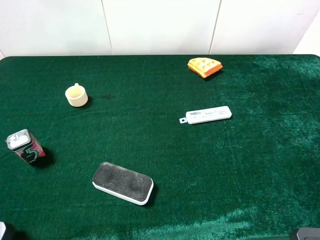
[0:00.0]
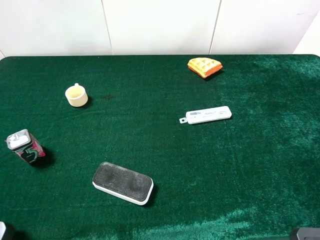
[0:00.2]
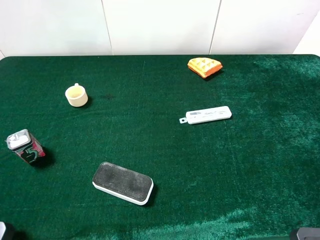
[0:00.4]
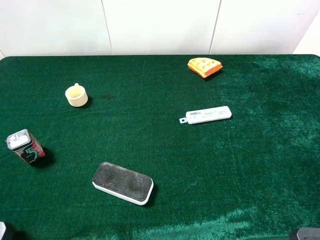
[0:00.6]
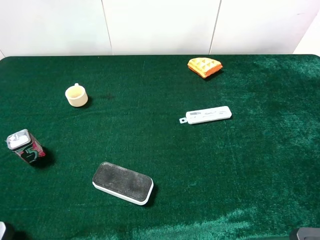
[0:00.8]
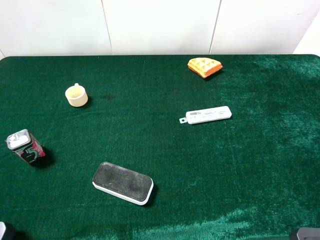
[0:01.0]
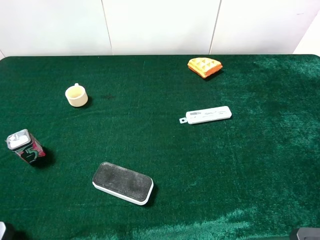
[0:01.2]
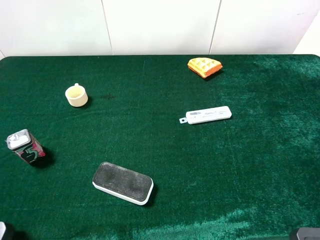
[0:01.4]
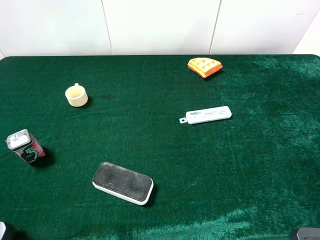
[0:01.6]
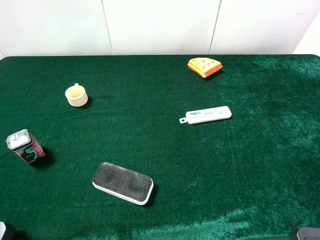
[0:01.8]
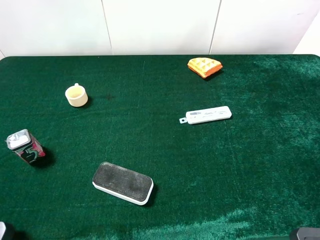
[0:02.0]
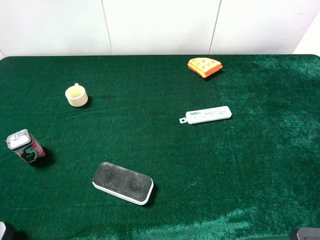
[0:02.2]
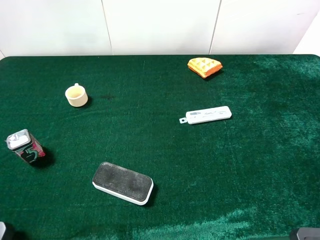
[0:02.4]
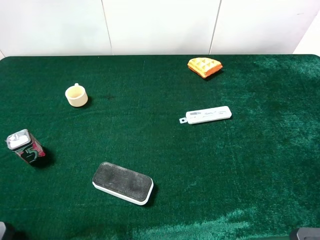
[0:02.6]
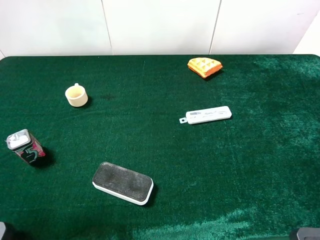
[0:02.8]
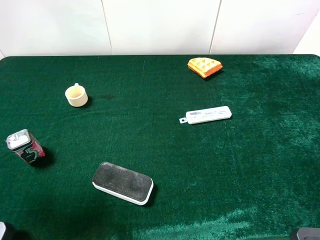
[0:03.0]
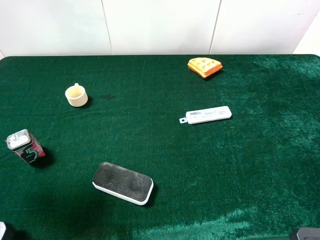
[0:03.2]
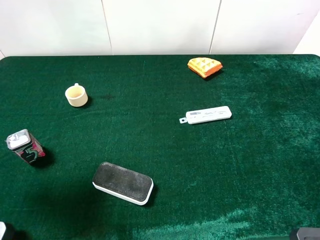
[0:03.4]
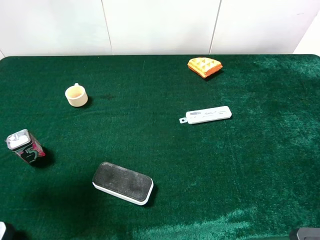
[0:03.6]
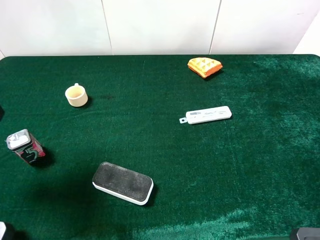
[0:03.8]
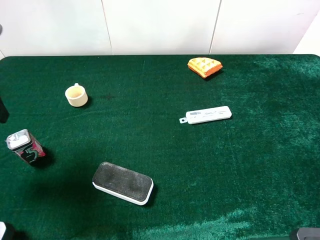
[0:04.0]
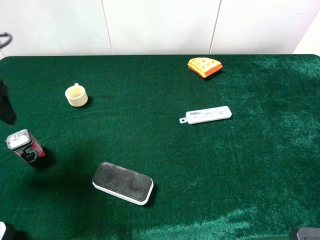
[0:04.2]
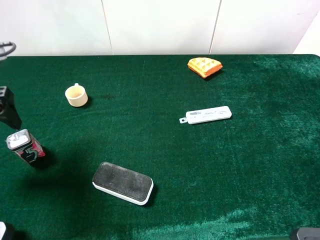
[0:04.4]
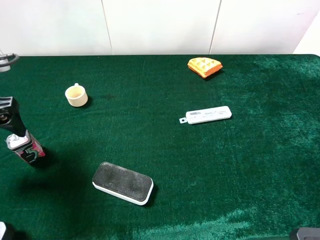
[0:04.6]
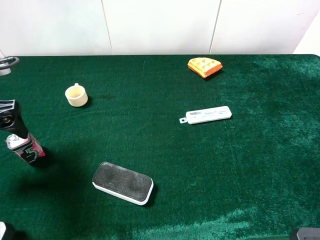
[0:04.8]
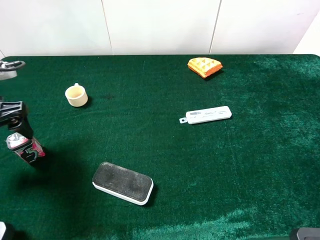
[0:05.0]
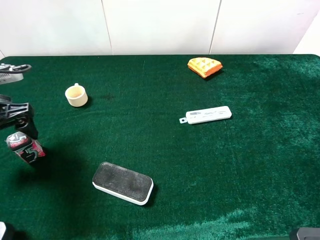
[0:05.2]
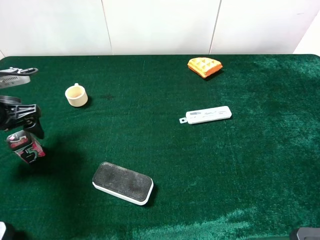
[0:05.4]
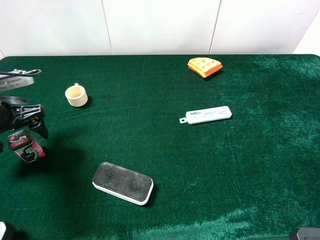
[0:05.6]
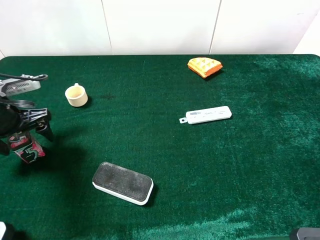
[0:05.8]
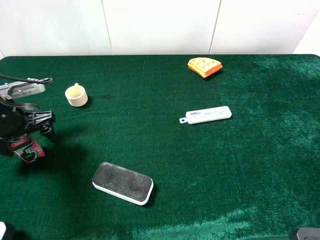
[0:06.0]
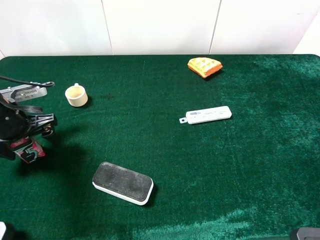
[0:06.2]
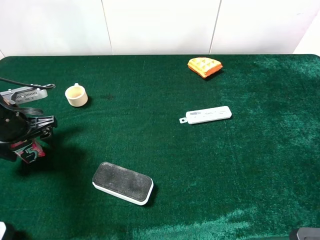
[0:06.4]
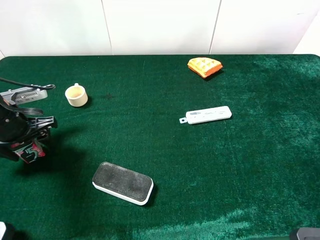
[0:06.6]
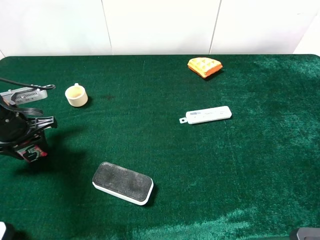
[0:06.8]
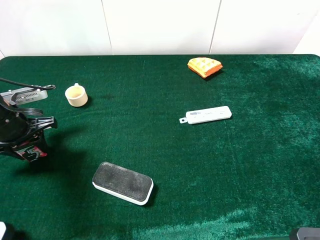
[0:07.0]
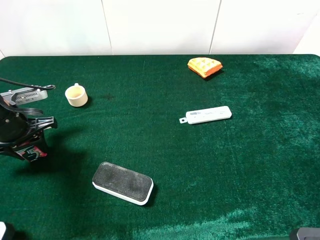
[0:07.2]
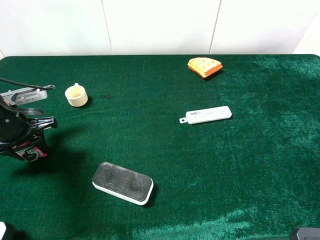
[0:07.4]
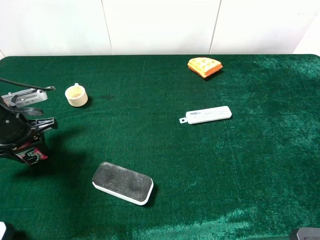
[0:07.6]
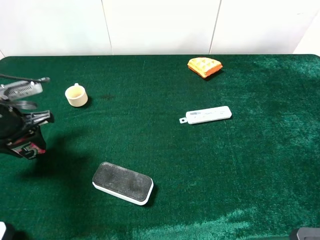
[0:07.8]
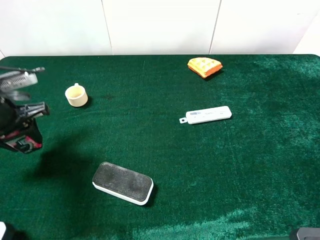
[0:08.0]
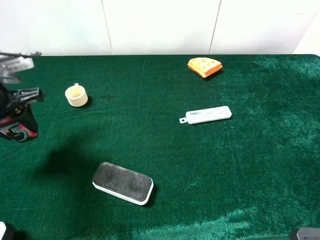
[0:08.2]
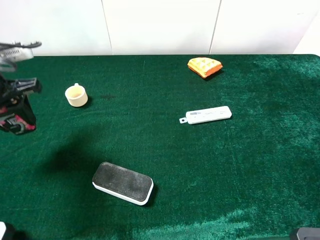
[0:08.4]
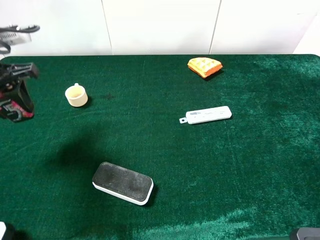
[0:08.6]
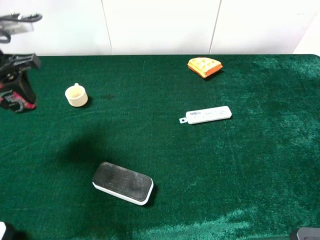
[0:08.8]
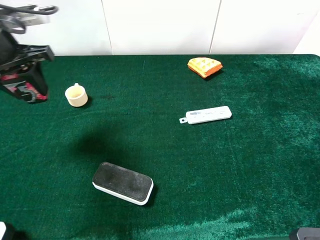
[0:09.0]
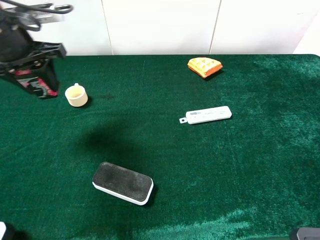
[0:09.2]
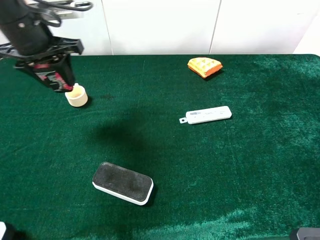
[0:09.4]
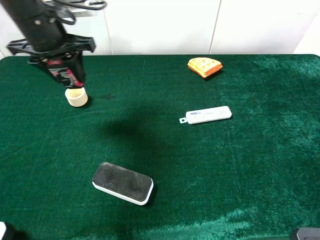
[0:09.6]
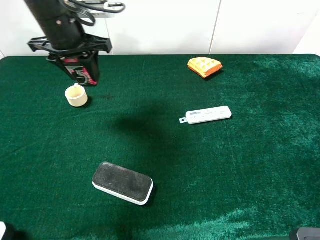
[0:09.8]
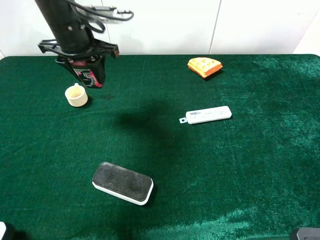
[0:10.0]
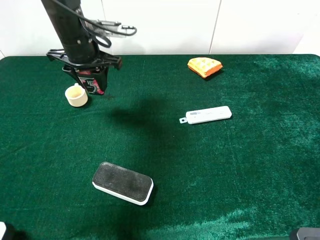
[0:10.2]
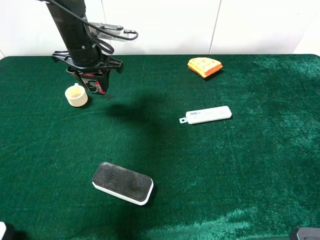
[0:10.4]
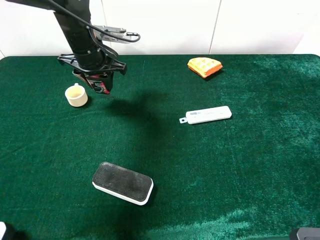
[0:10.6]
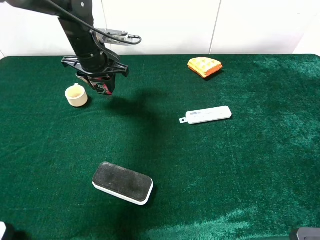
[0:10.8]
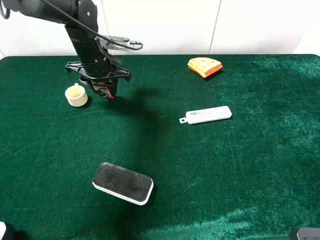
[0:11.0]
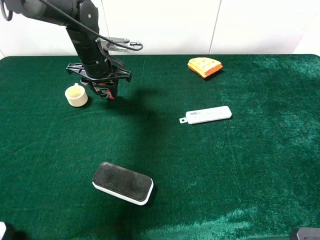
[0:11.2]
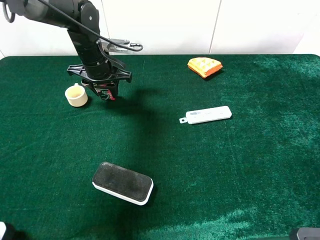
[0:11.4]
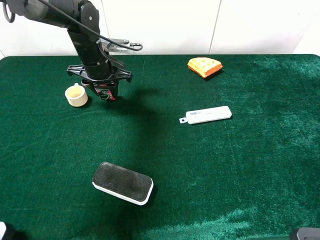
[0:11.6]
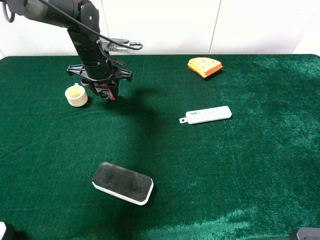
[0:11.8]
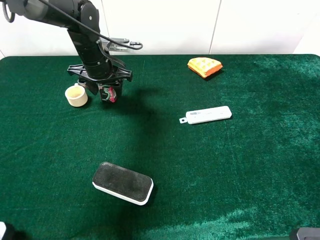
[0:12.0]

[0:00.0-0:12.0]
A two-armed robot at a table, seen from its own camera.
Task of the whole recording: the gripper move the object.
Step, 0:00.0 to 0:07.4: Grasp the square chewing gun with the left gripper.
0:00.0 to 0:01.6: Both grippers stay about where they are.
0:01.6 to 0:03.0: The left gripper goes approximately 15 cm forward.
0:03.0 to 0:04.4: The left gripper heads downward and forward, covering approximately 10 cm.
0:04.4 to 0:06.0: The left gripper moves downward, roughly 10 cm.
0:06.0 to 0:07.6: The left gripper closes its fingers.
0:07.6 to 0:09.0: The left gripper heads upward and forward, covering about 15 cm.
0:09.0 to 0:10.4: The left gripper is displaced to the right, forward and downward by some 15 cm.
0:10.4 to 0:12.0: The left gripper moves some 5 cm, and opens its fingers.

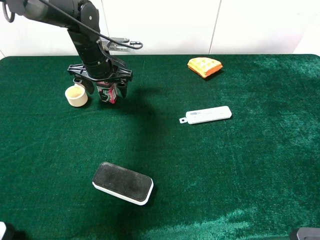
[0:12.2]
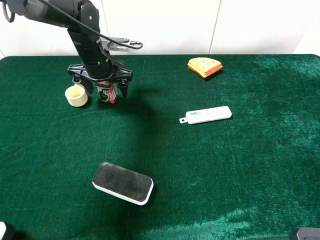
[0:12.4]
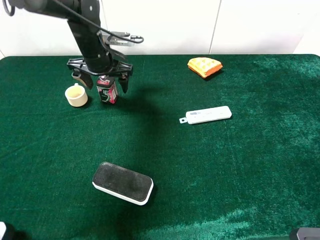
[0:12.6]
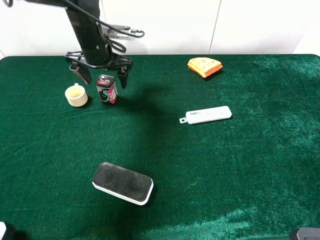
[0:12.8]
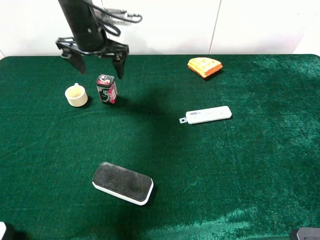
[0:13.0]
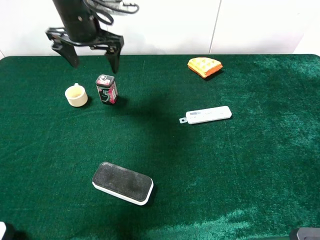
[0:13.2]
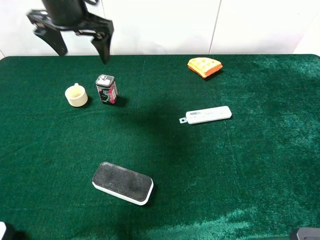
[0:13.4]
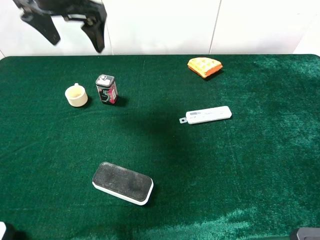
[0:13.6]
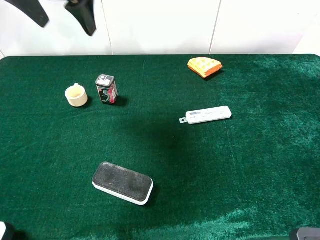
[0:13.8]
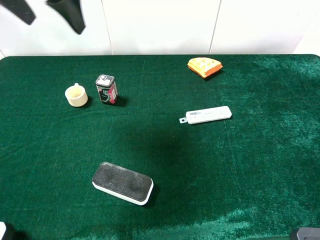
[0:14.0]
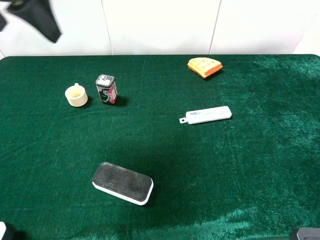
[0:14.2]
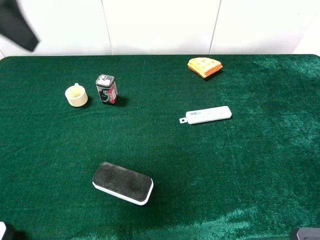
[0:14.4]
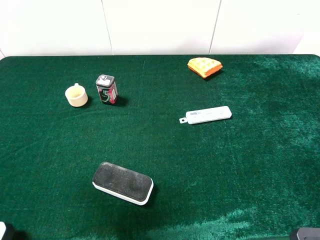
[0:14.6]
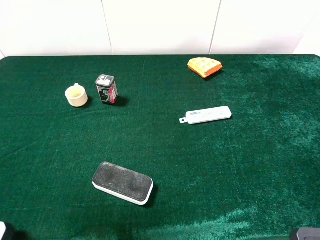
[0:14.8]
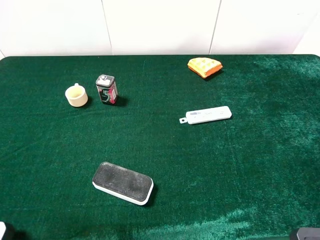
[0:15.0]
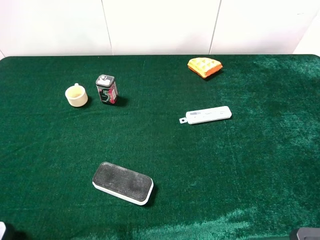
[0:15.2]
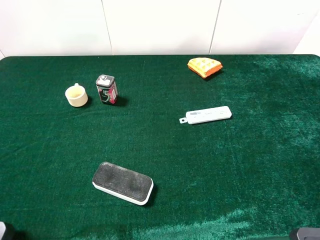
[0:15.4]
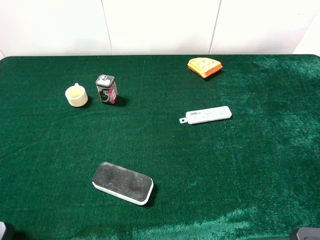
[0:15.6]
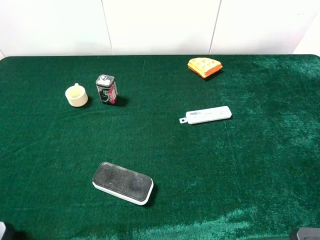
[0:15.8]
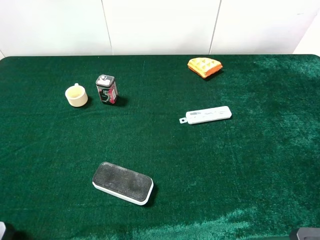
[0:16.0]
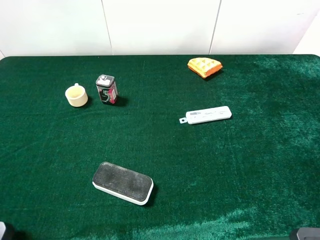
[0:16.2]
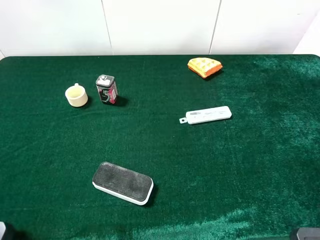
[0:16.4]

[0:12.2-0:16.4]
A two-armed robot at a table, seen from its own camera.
Task of the whole recording: the gripper move the object.
0:12.2 to 0:13.6: The left gripper travels upward by approximately 20 cm.
0:13.6 to 0:15.0: The left gripper goes approximately 30 cm backward and to the left.
